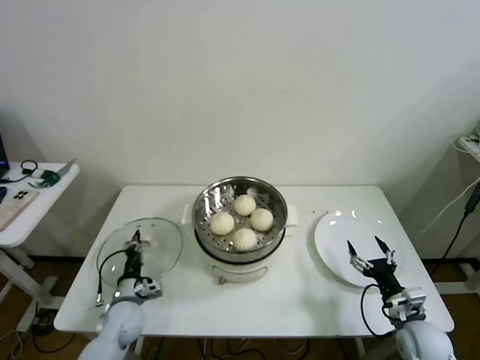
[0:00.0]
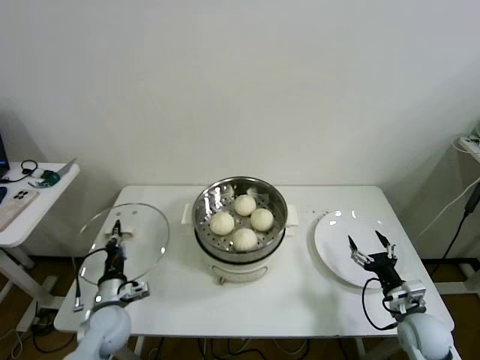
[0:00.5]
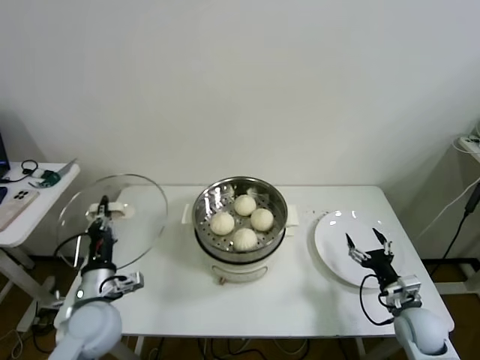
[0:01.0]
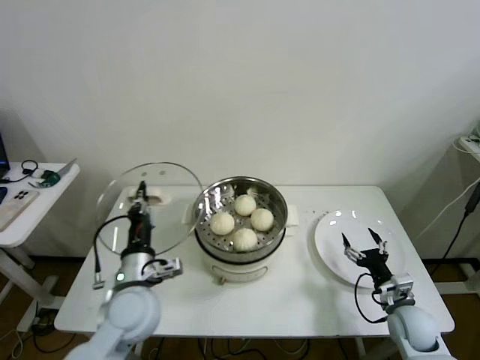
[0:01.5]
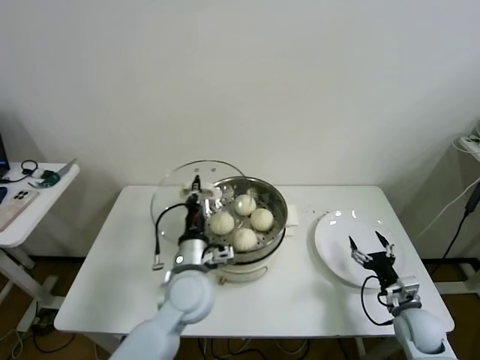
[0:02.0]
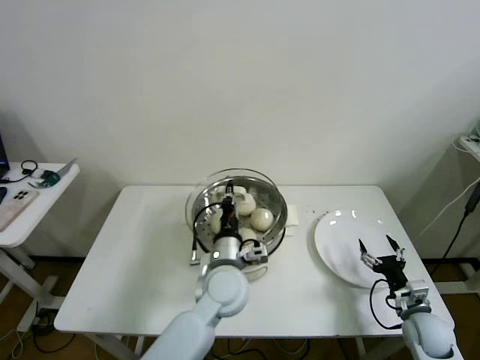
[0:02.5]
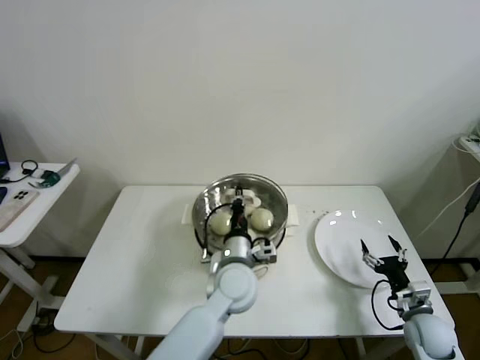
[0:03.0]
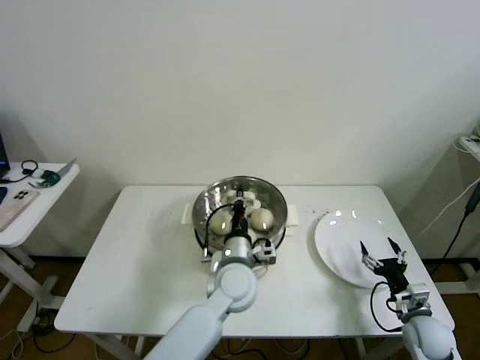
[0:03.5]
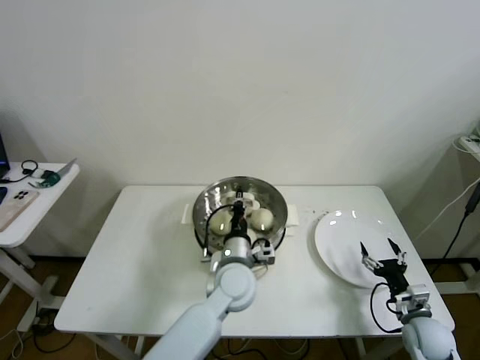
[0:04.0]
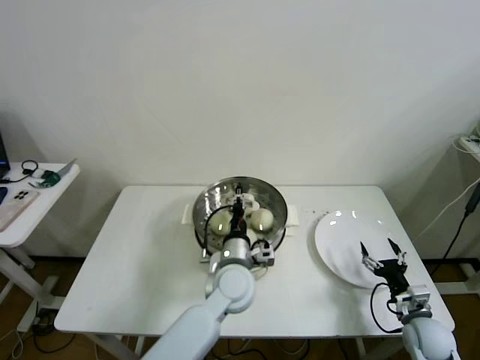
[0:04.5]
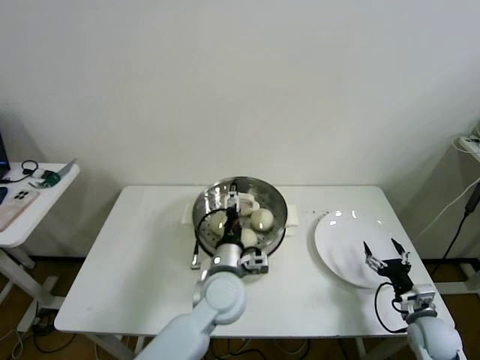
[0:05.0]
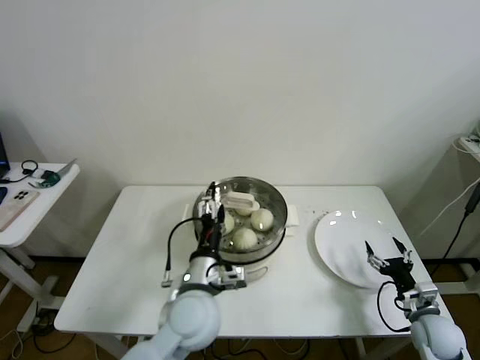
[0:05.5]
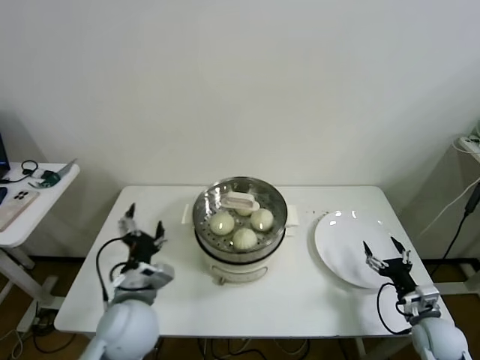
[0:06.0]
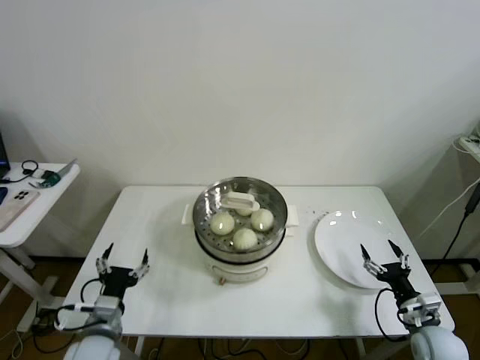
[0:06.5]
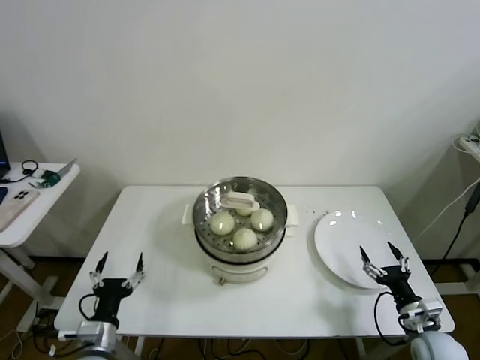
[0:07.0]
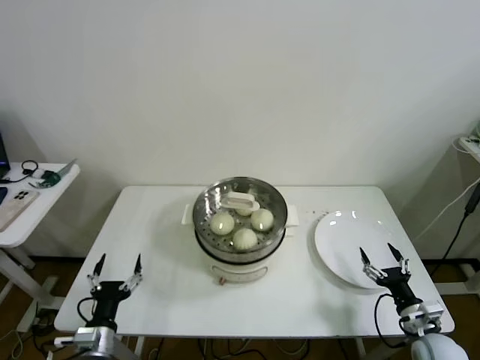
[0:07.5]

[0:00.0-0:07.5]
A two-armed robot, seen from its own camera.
Task of the whole recording: take steamed baozi put them in steamer then cover it.
Step, 0:00.0 to 0:04.5: Place the pot lid on the steamer with left gripper.
0:00.0 to 0:02.0: The left gripper is displaced upward and to the right by approximately 25 cm.
0:02.0 to 0:04.0: The left gripper shifts approximately 10 cm to the right.
0:04.0 to 0:05.5: The left gripper goes roughly 10 cm backward and to the left, and opens up.
0:05.5 to 0:07.5: The left gripper travels to the left, downward and backward by about 30 cm.
